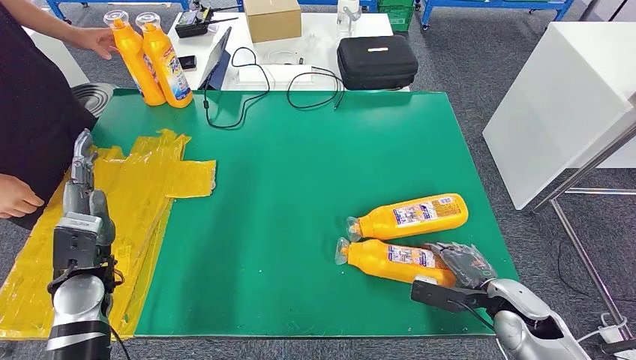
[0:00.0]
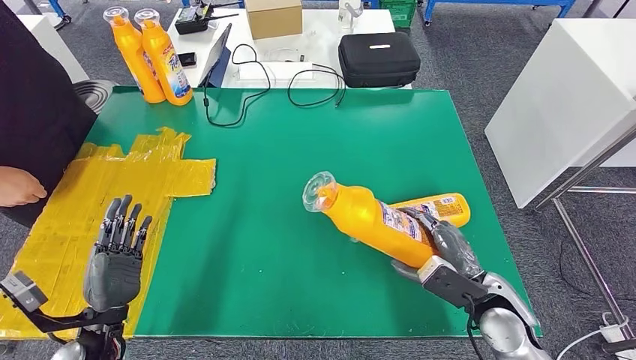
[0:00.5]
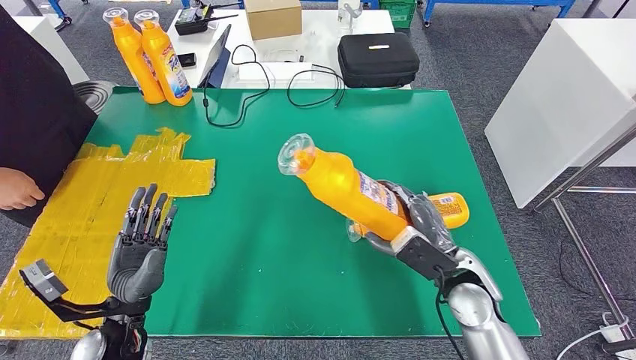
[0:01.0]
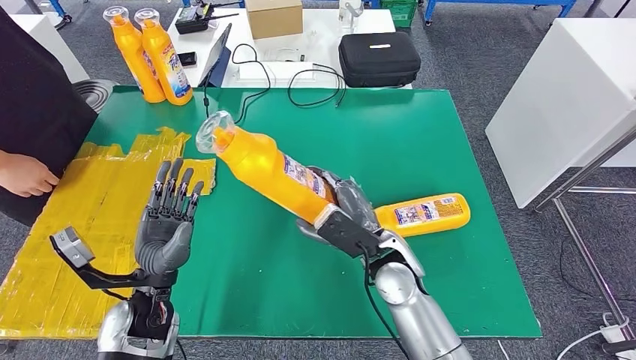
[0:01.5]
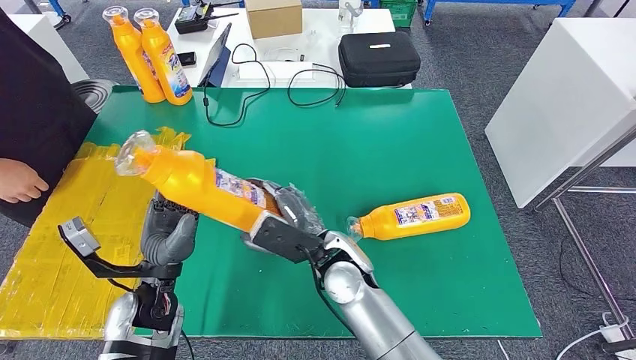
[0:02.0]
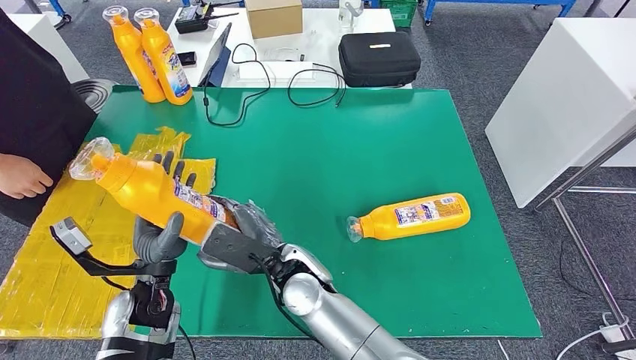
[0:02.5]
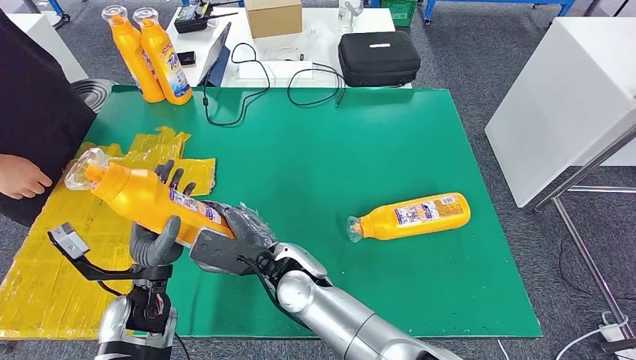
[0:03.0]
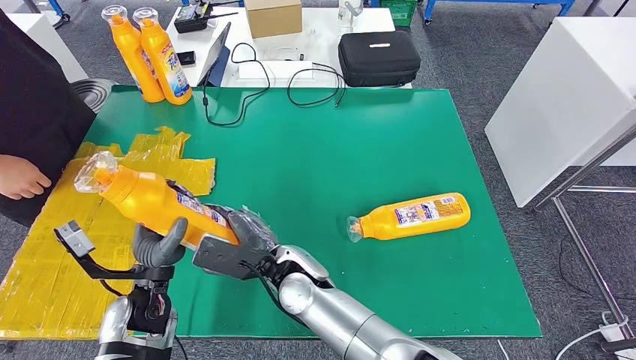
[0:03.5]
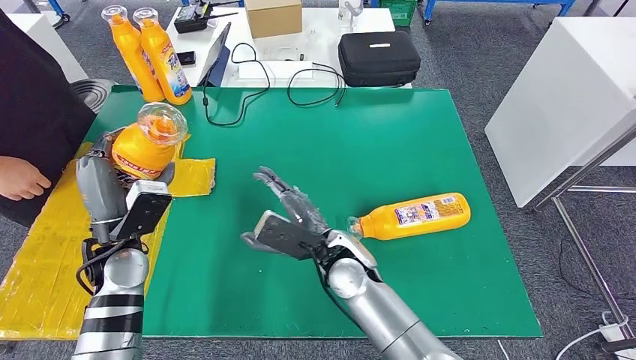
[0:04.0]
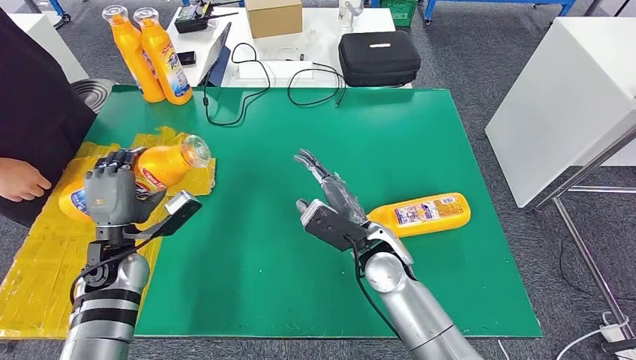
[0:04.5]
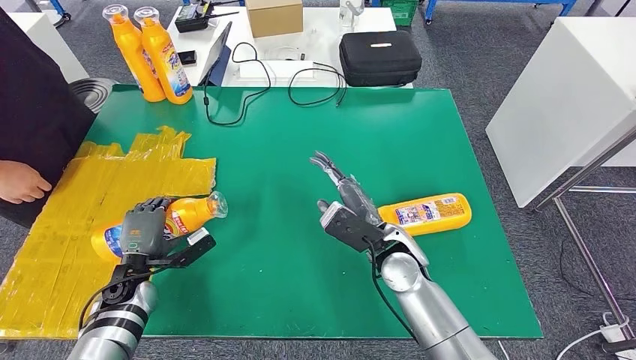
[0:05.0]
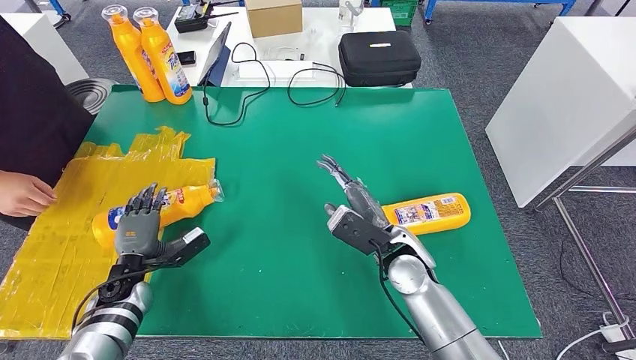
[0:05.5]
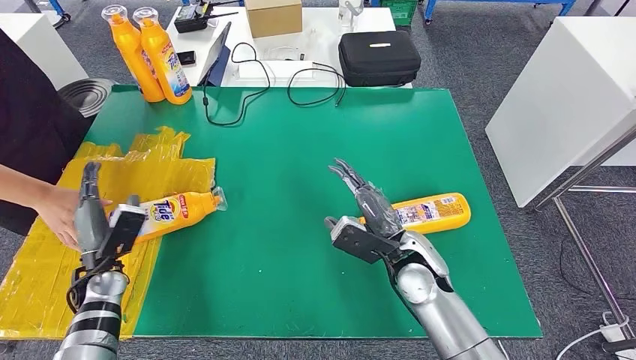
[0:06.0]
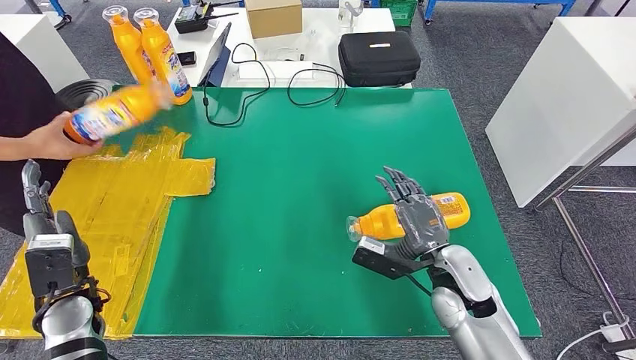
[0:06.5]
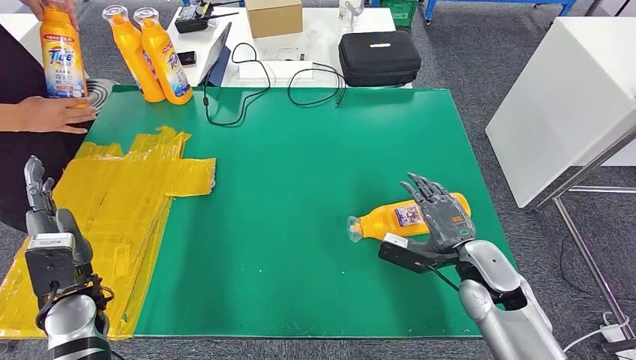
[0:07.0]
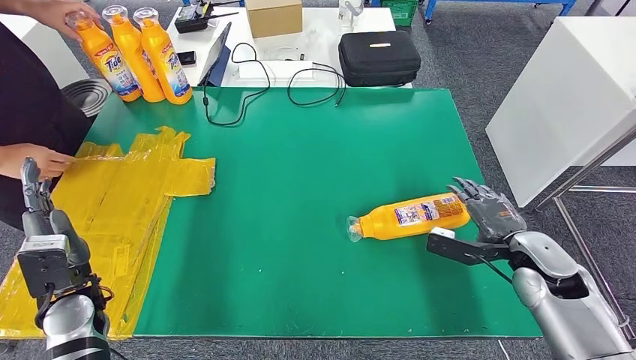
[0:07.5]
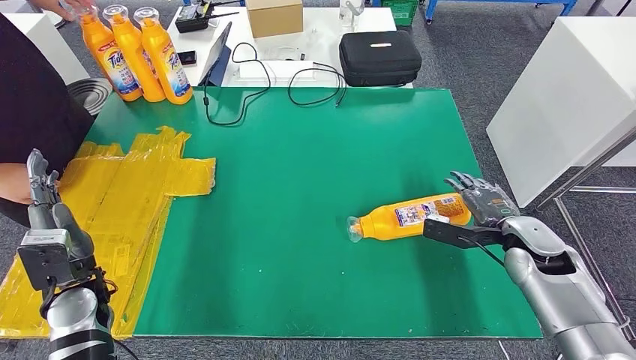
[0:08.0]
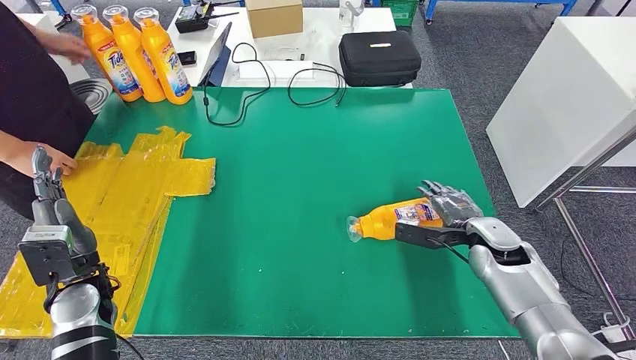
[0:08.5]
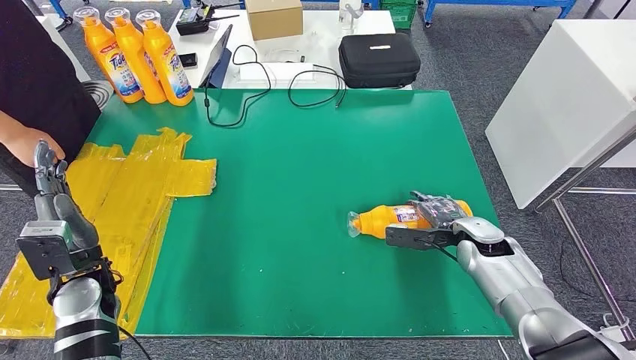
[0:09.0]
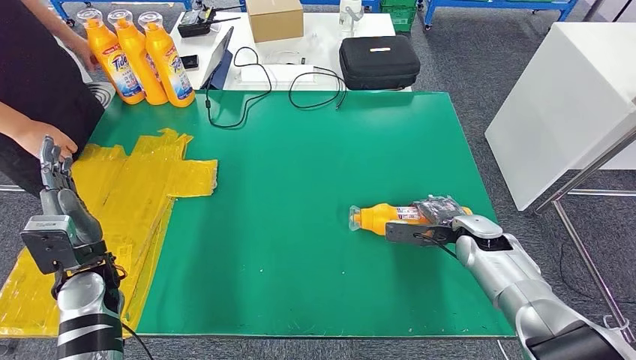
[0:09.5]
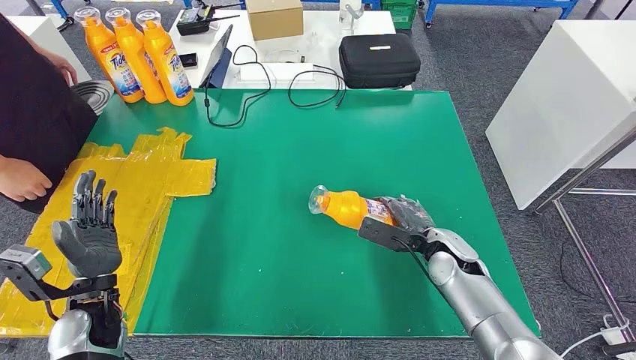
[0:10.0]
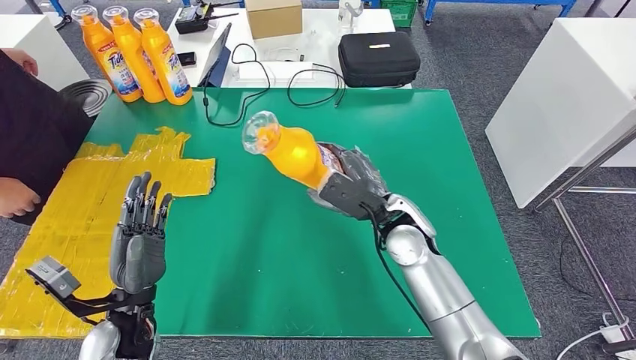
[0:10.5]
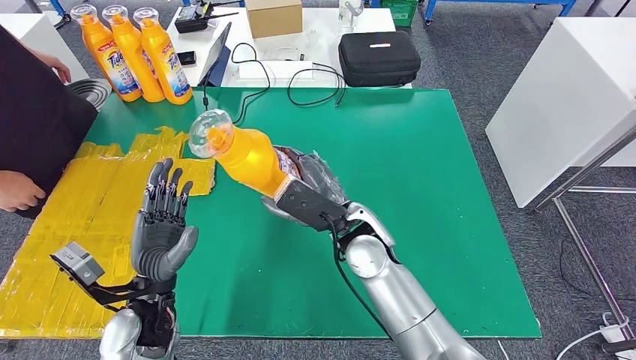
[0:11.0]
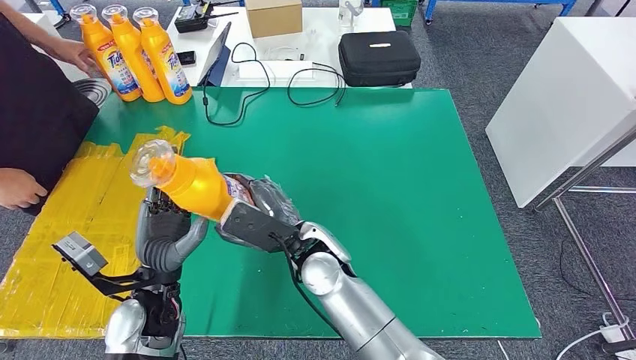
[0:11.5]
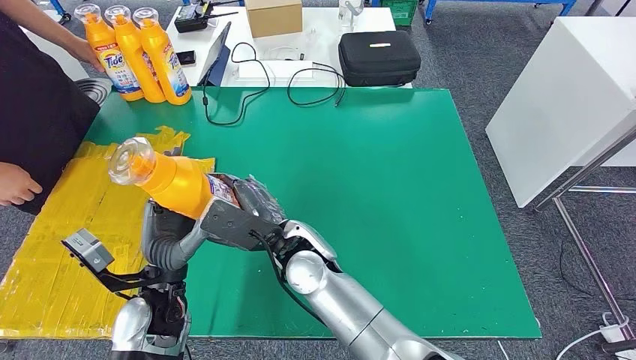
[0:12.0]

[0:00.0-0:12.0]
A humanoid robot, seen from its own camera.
Step, 0:01.5 to 0:04.5: Flip the bottle to face forward.
Step, 0:05.0 to 0:11.0: Pick up the bottle from the table.
0:02.0 to 0:04.0: The right hand travels to the left and back again, roughly 10 cm each way; the left hand is displaced forward and to the left by some 5 cm.

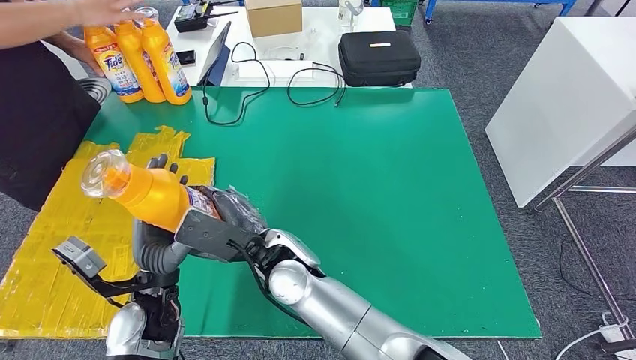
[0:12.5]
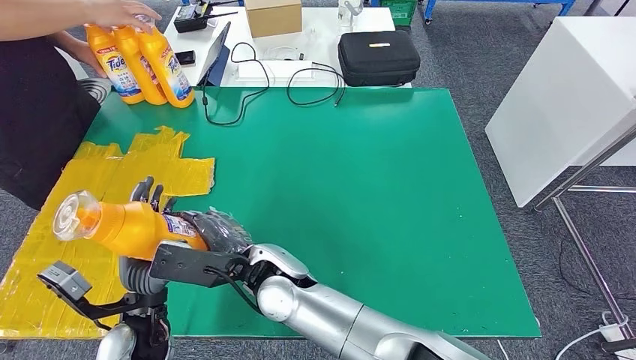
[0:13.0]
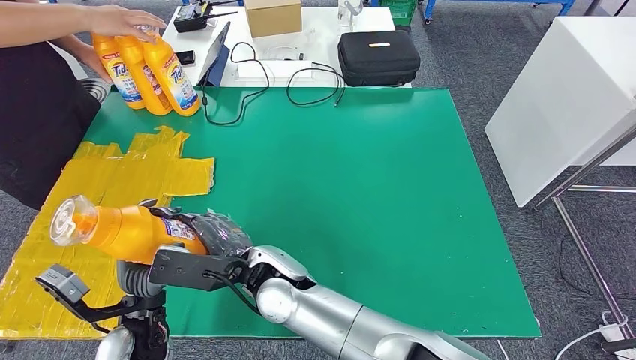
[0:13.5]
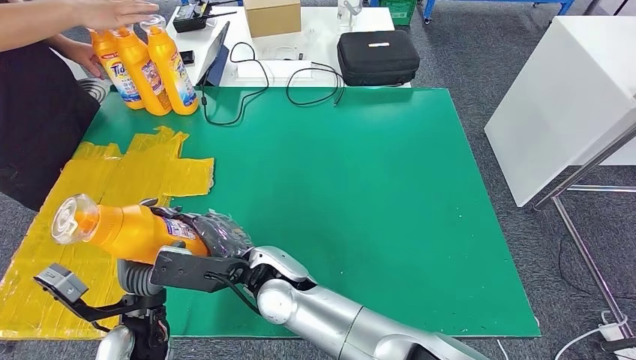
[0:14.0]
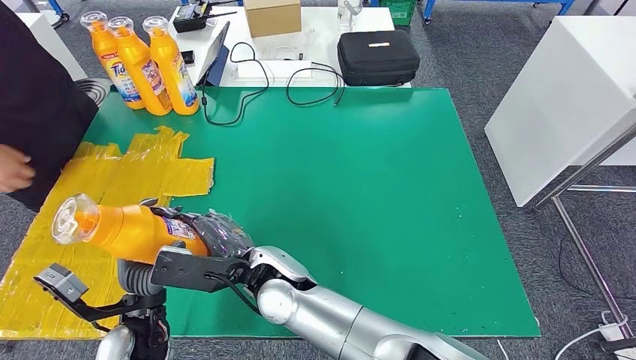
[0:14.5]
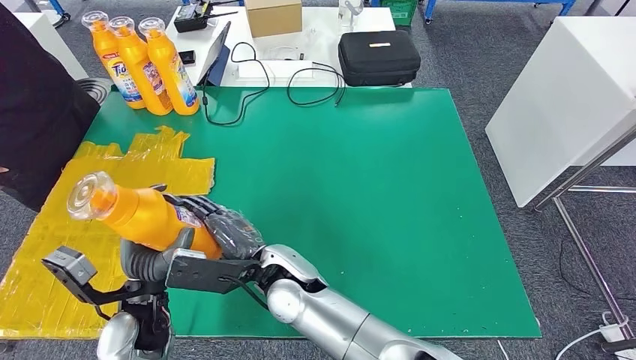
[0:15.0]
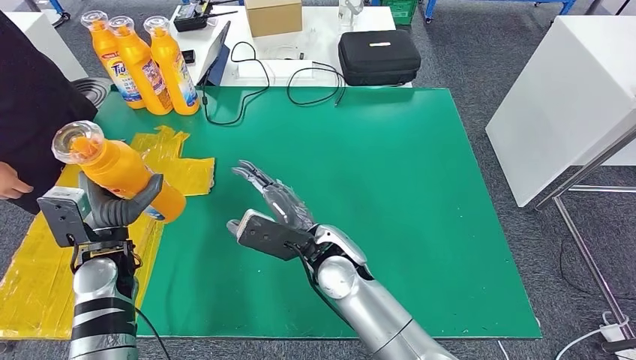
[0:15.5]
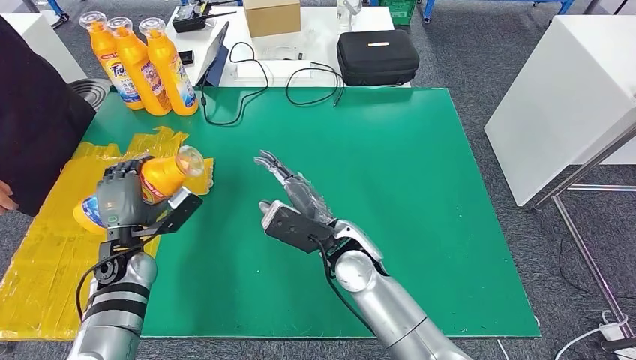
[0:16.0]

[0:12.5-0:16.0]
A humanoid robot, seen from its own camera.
Step, 0:12.5 to 0:16.0: Flip the bottle to face forward.
